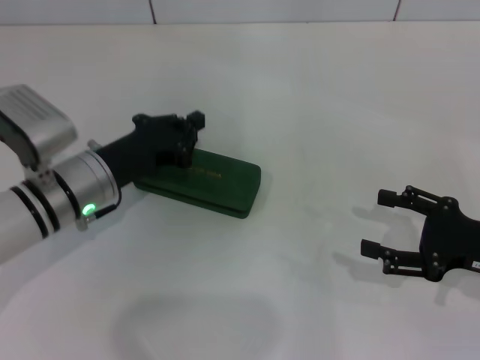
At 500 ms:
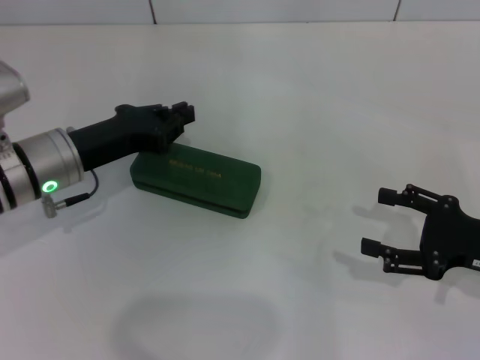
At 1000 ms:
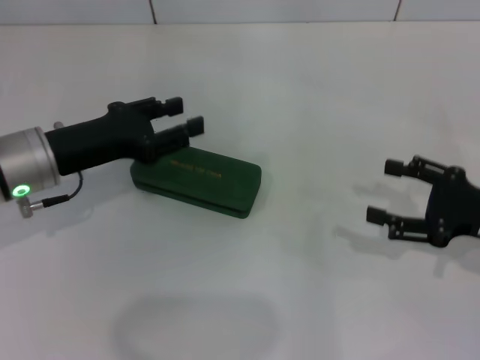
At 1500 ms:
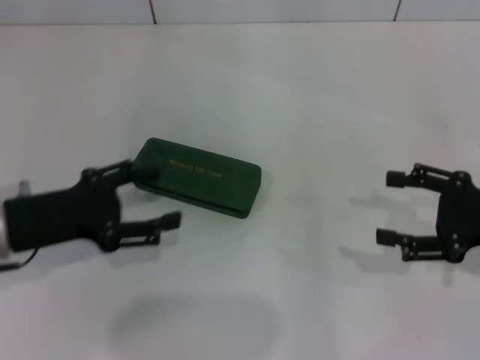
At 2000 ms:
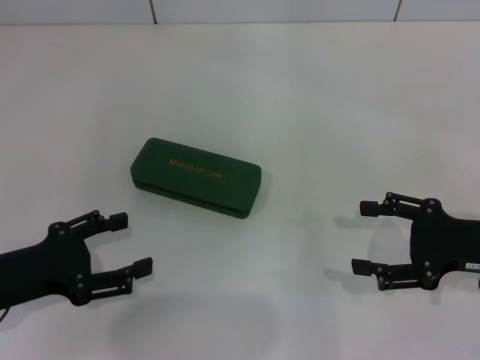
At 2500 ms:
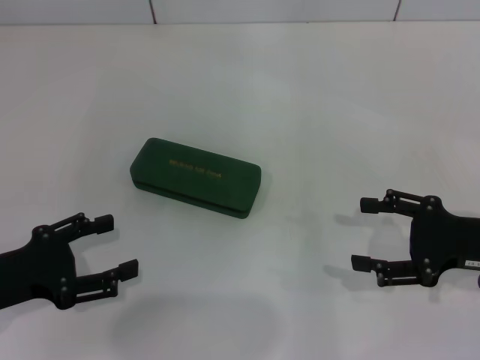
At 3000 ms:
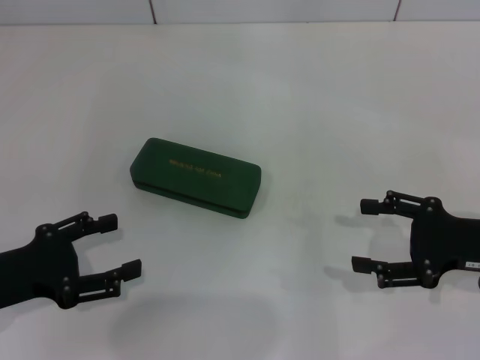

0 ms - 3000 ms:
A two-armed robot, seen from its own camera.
0 ms - 1500 ms: The left gripper goes some 10 cm to the left and backward, and opens up.
1500 ms - 3000 ms: The left gripper shifts about 5 cm backward.

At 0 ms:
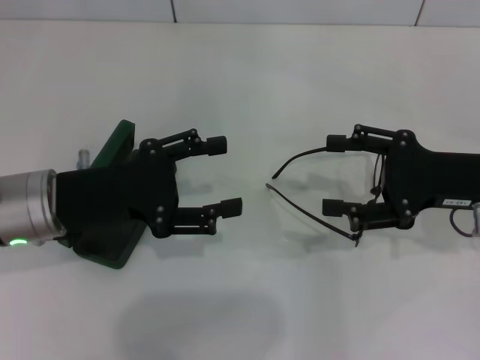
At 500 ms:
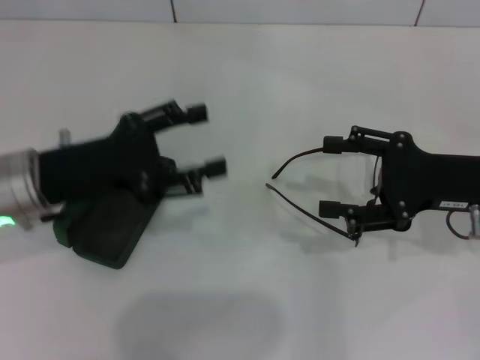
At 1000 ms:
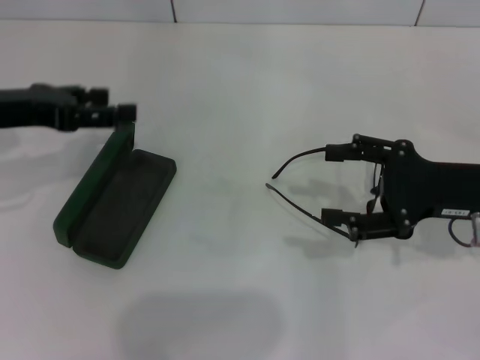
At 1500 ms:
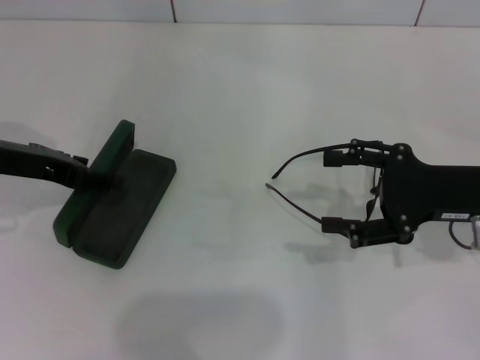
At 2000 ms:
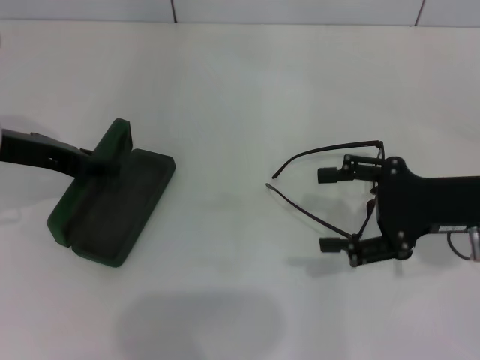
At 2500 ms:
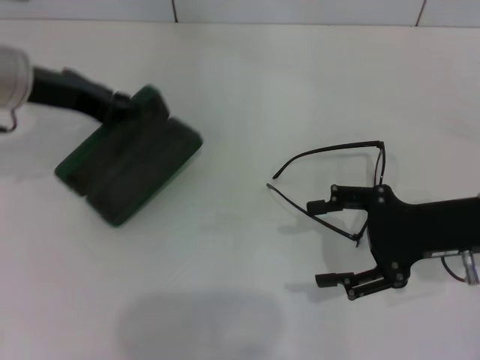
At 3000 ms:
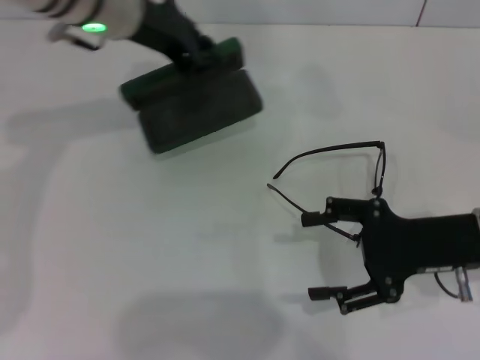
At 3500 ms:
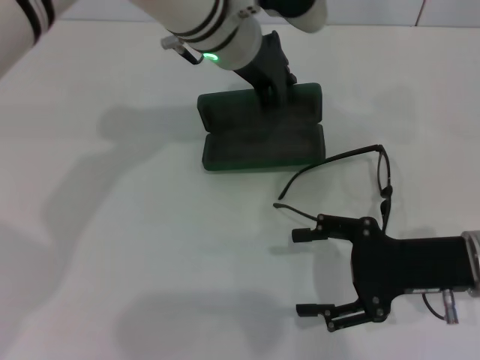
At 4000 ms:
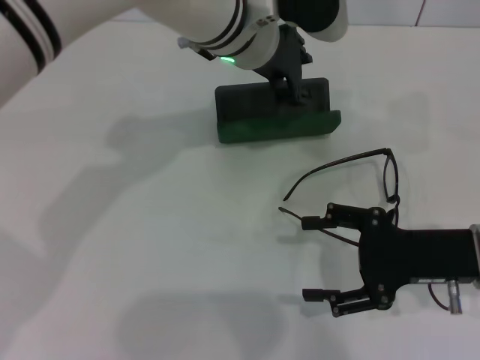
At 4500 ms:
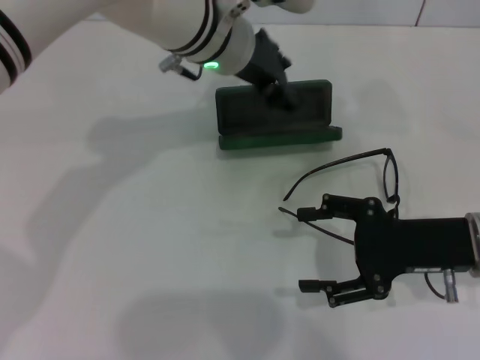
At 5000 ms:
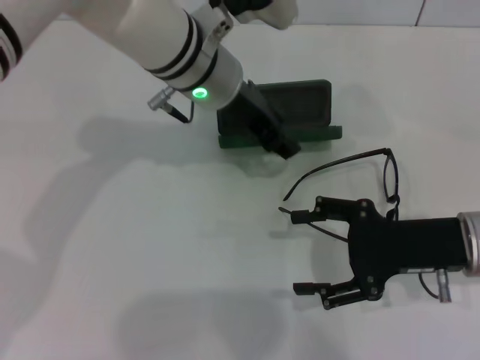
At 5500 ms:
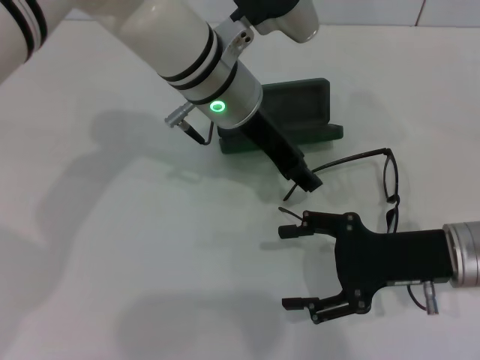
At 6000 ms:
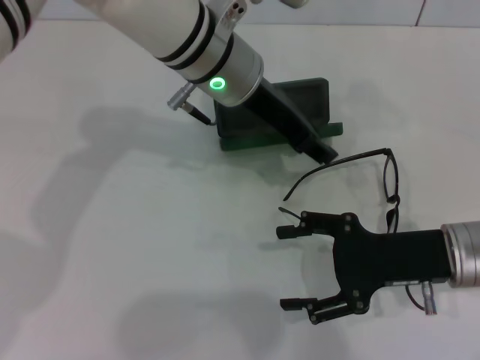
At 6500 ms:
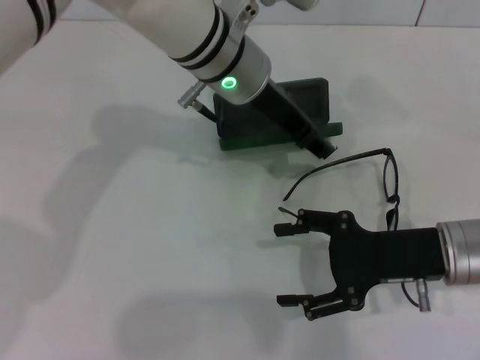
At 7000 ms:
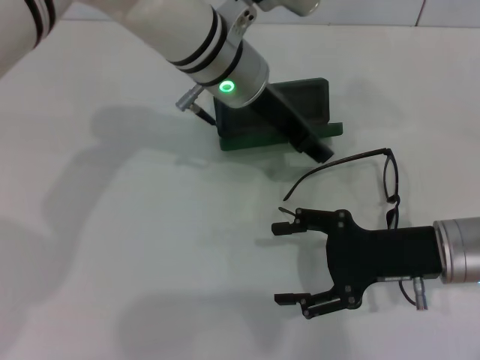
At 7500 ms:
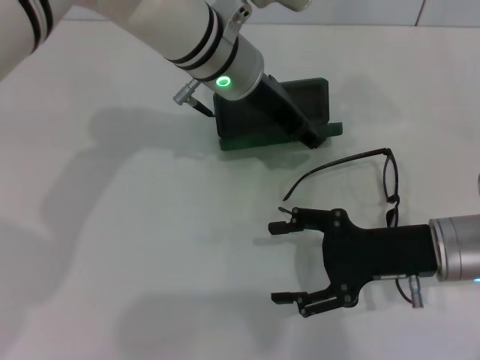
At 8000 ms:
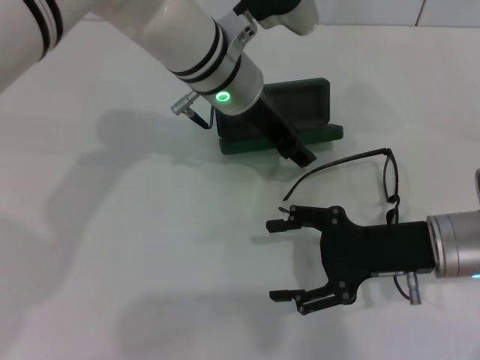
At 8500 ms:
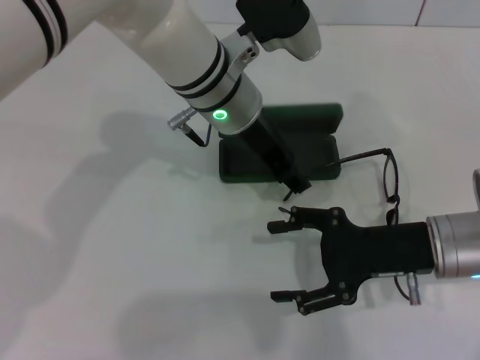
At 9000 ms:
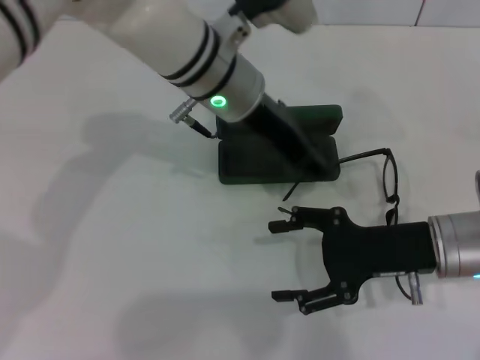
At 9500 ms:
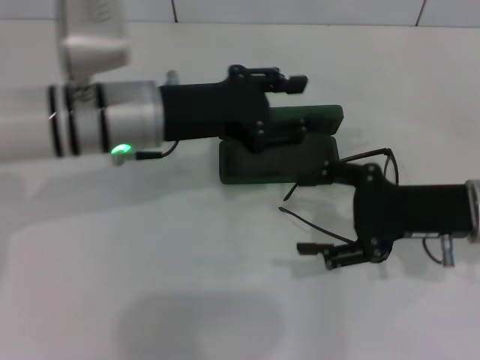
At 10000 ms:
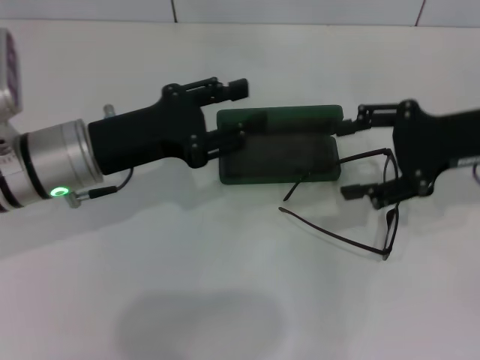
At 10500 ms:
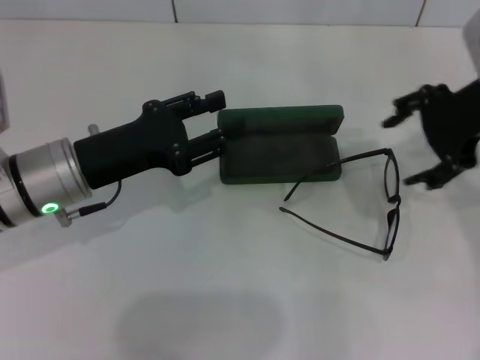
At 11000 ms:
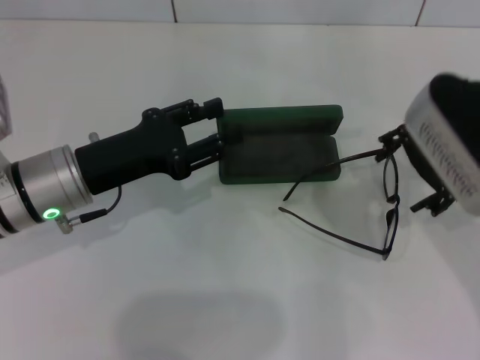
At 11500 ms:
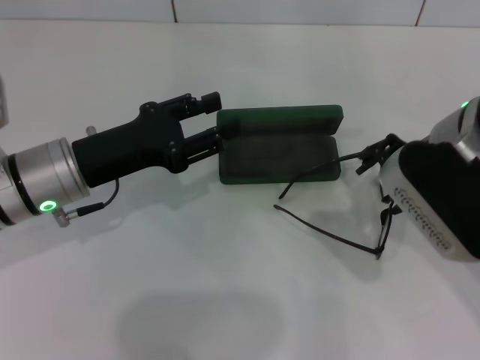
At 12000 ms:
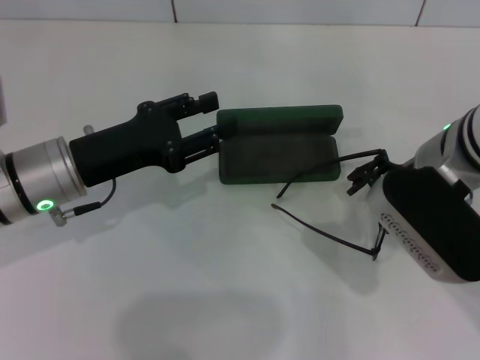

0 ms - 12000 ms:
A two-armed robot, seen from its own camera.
Step, 0 ms - 2000 ms: Grab the glasses case with your left hand.
Step, 2500 ms - 8500 ms: Place the glasses case in the center of the table with your left hand.
0 ms - 2000 ms: The left gripper travels forward and to the left by roughly 10 cm.
2000 ms - 4000 ms: The left gripper shifts roughly 25 cm to the right, and closes up.
6000 ms - 8000 ms: The grippers stay close to where they were, moving slightly.
8000 ms - 10000 ms: The left gripper goes some 20 cm to the left and backward. Meanwhile the right gripper goes roughly 15 cm upward, forward and to the right.
10000 ms - 12000 ms: The right gripper is displaced to the left by roughly 10 cm.

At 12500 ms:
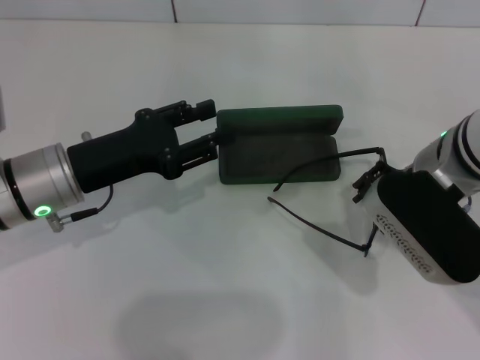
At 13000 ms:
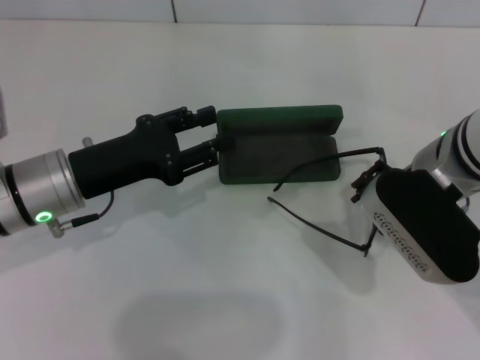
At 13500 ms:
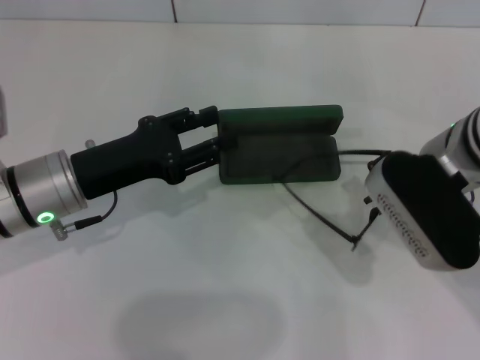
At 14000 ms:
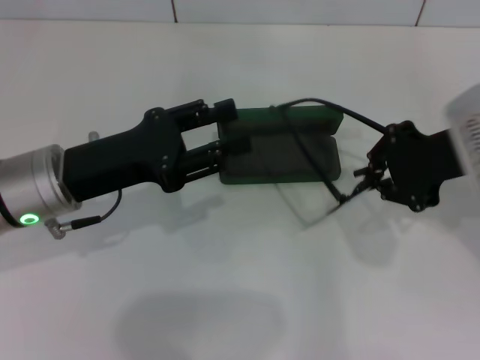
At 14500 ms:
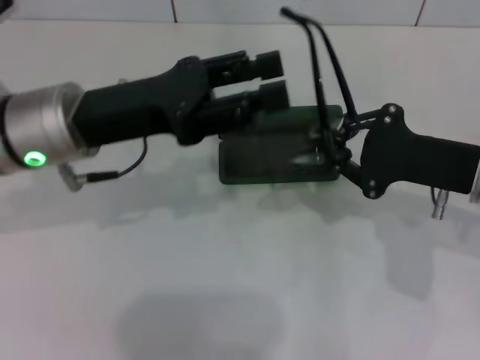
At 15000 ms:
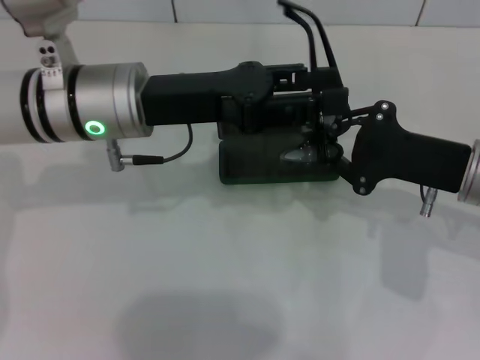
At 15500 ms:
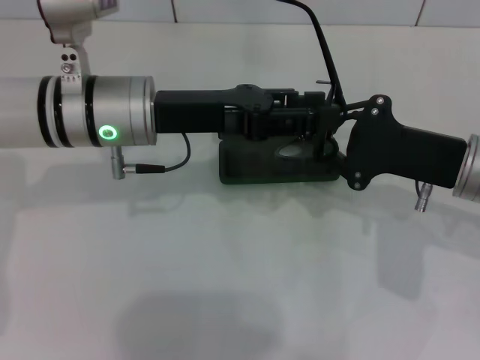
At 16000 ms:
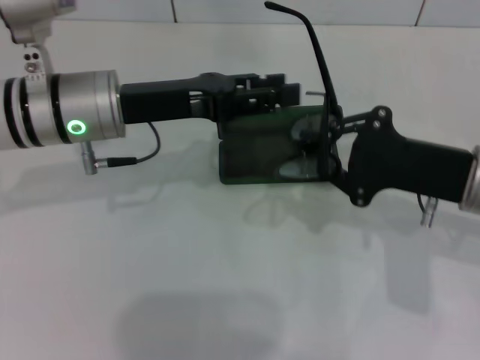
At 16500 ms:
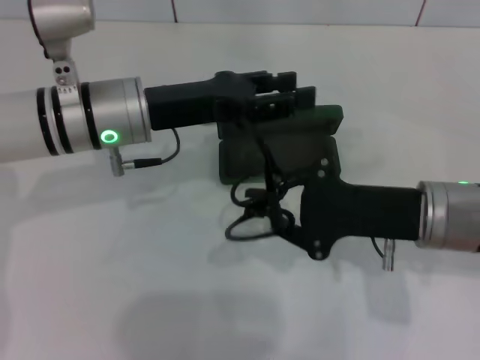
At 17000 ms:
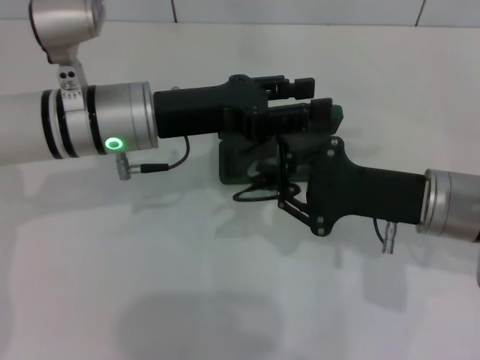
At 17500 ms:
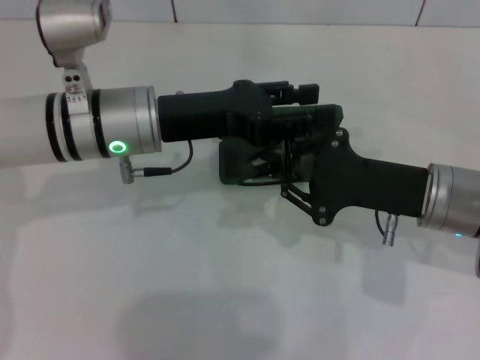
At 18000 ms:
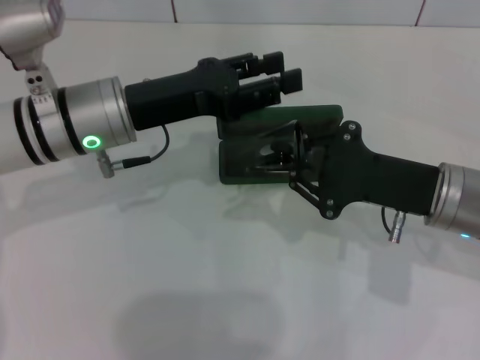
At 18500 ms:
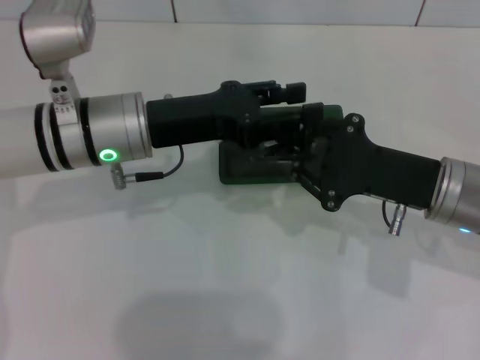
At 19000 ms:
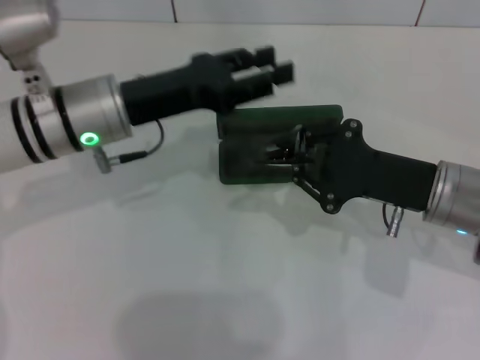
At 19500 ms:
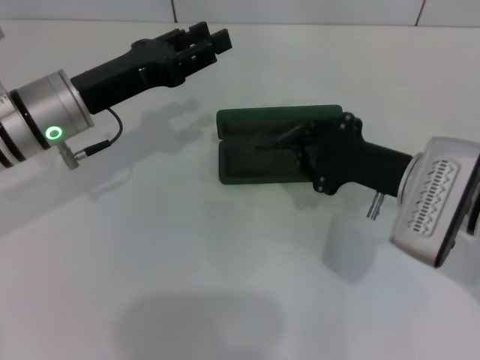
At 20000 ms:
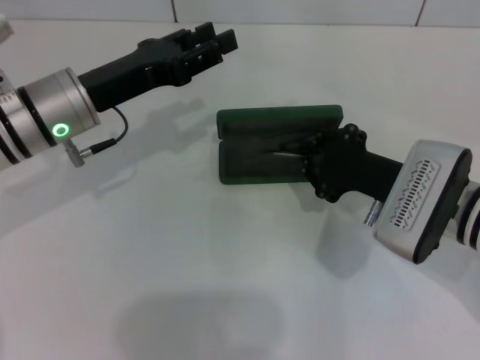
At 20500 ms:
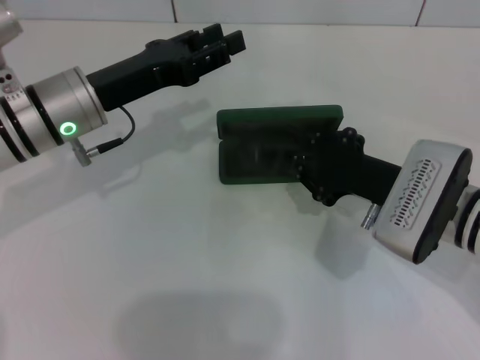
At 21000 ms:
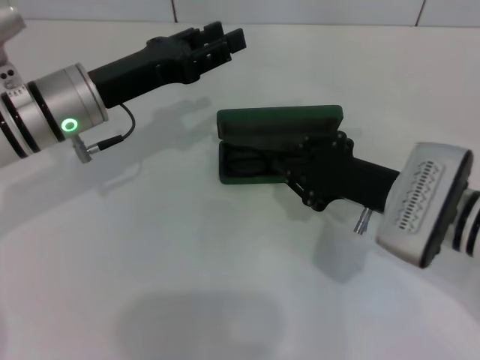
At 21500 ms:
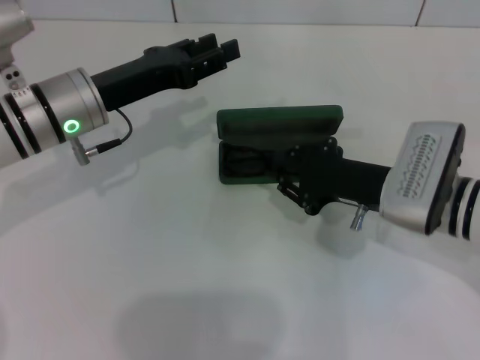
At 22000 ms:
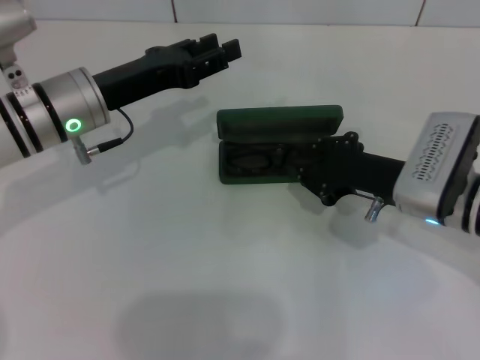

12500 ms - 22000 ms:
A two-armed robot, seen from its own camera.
Step, 13500 ms - 17500 ms: Fold the frame with your left hand.
Step, 18000 ms - 20500 ms: Put the glasses into the case with your right hand.
12500 ms - 14500 ms: The right gripper goes approximately 10 cm to the right, and closes. Meanwhile the left gripper moves upward, about 5 cm.
14500 ms - 16500 ms: The left gripper shifts by about 5 cm, while the right gripper travels to the left by some 5 cm.
20000 ms - 22000 ms: There are only small adjustments of the grippers.

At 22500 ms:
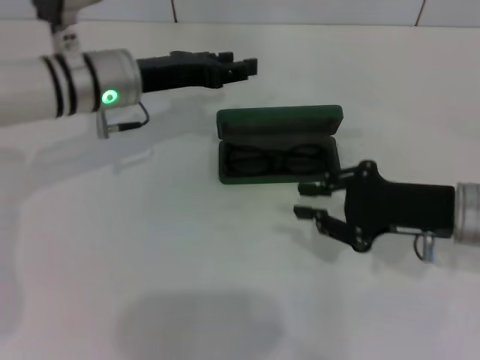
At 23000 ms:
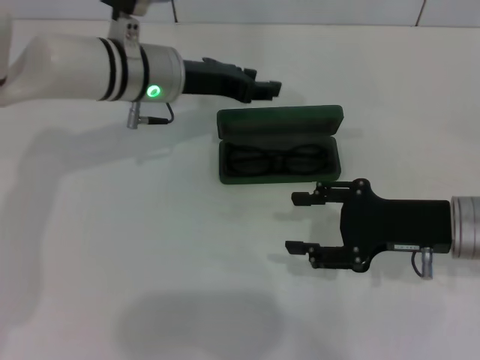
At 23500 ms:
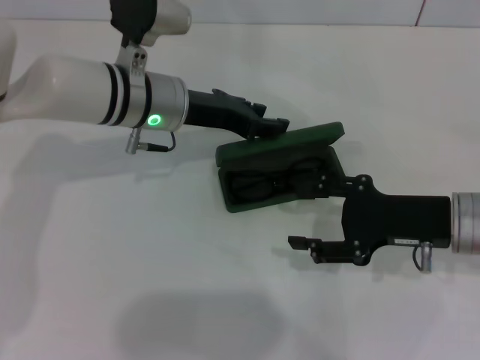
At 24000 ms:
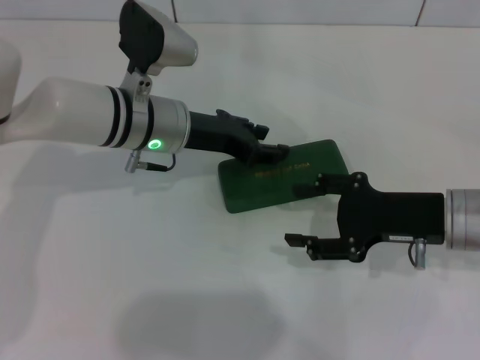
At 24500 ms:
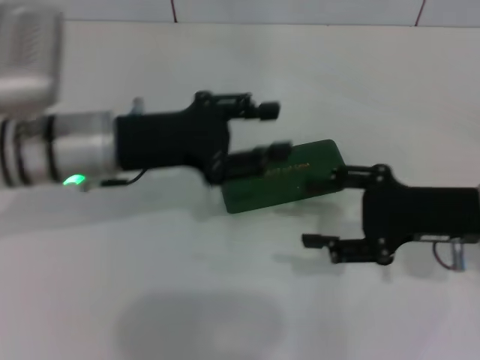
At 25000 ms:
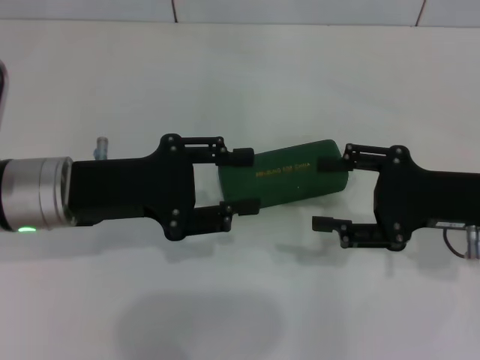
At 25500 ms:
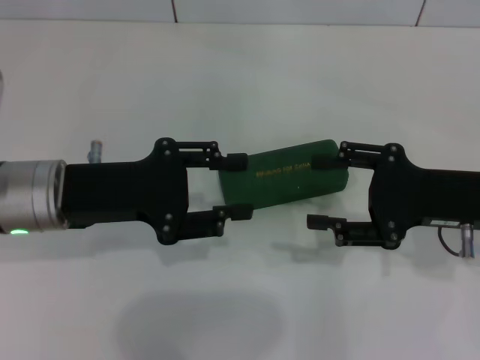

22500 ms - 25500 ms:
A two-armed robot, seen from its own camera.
Step, 22500 ms - 24000 ms: Close the glasses case with your left hand.
22500 ms - 24000 ms: The right gripper opens its fingers; the left gripper shifts by some 5 cm.
24000 ms - 25500 ms: The left gripper goes about 15 cm backward and to the left.
